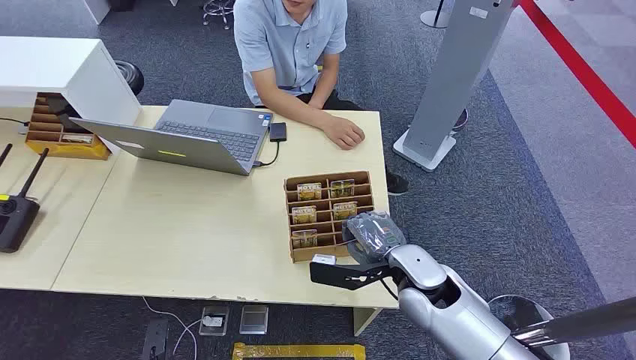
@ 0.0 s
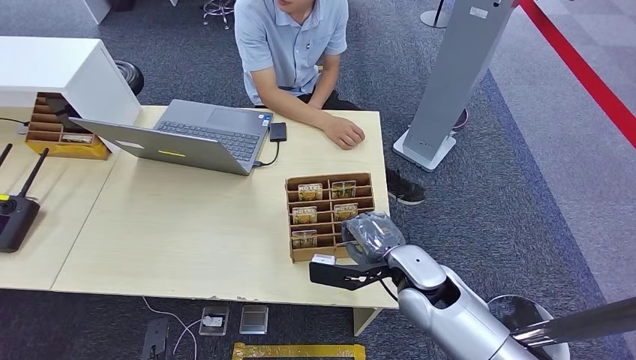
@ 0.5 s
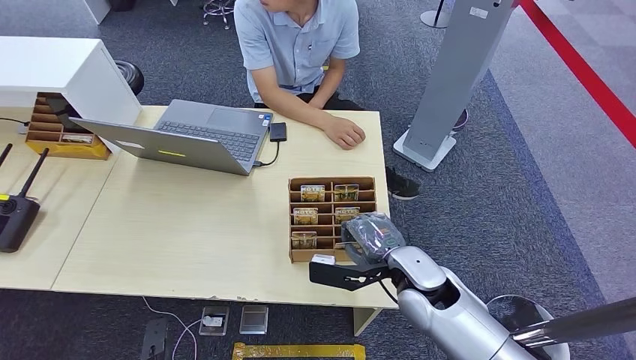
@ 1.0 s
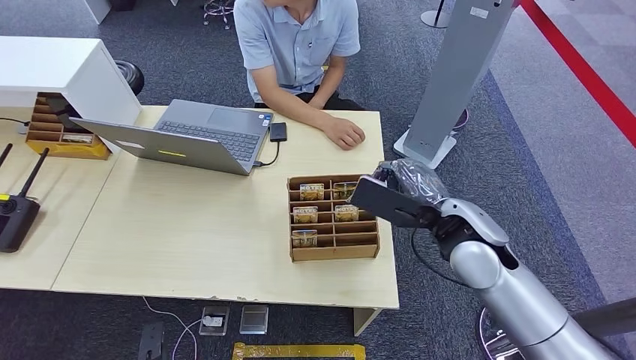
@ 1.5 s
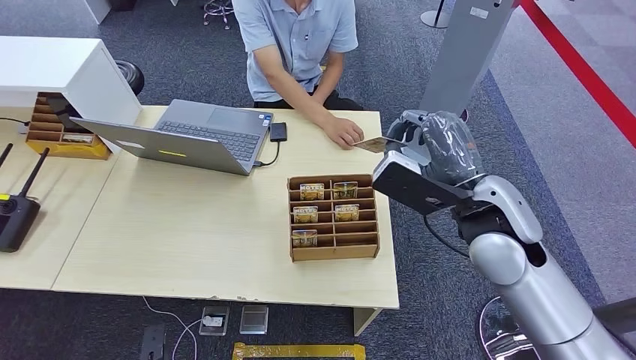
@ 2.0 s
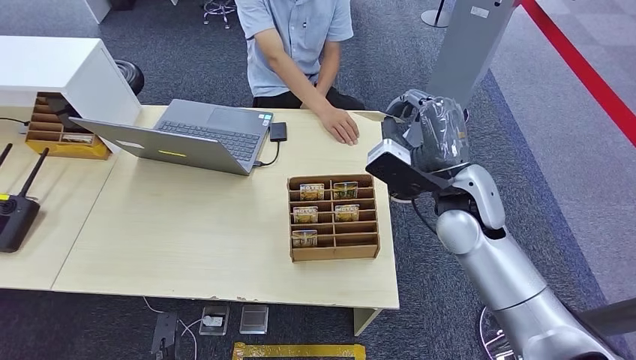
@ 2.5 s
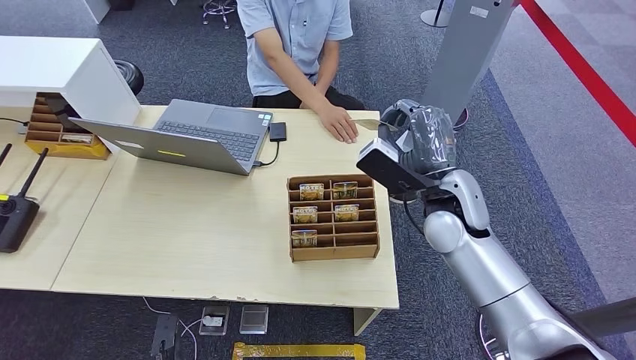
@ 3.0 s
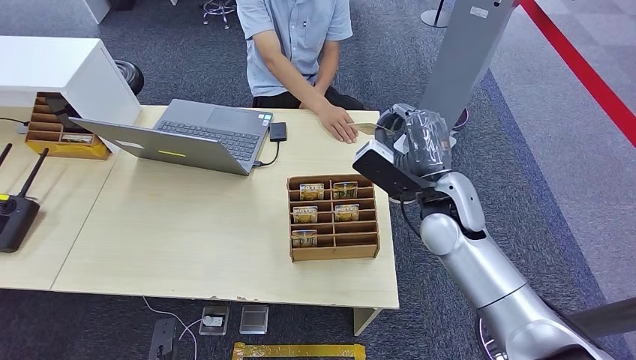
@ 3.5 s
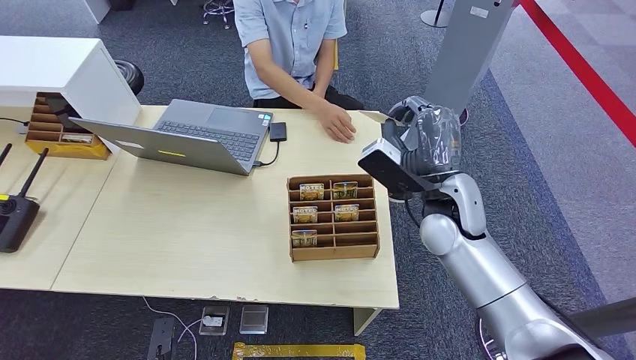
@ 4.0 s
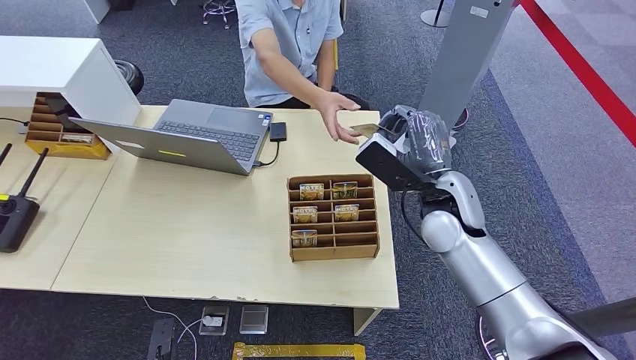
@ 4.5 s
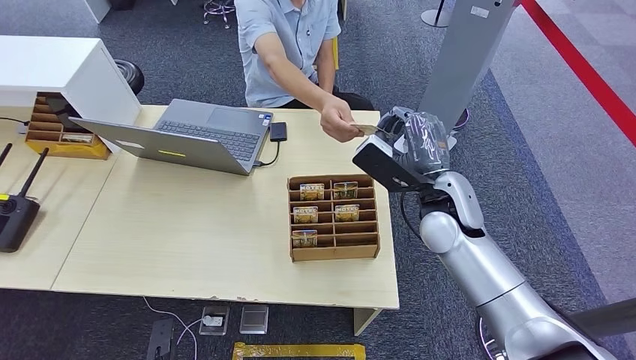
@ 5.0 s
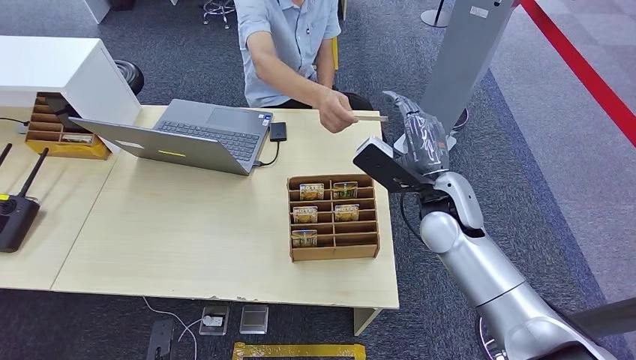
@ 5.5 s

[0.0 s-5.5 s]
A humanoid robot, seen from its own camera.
Step, 0.0 to 1.5 s: Pick up the key card from the card box.
Step, 4.5 to 5.5 s: Hand the key card to the target.
2.0 to 3.5 s: The right hand is displaced downward and forward by some 10 cm.
3.5 to 5.5 s: The hands move only a little.

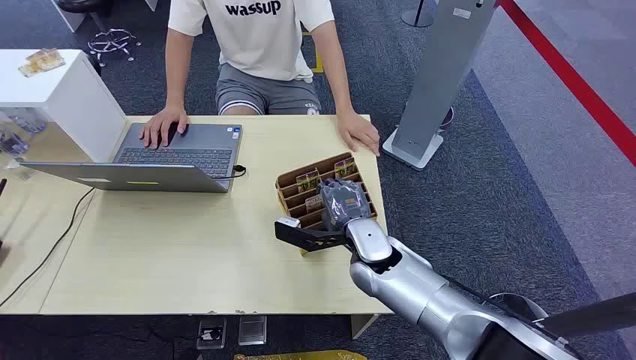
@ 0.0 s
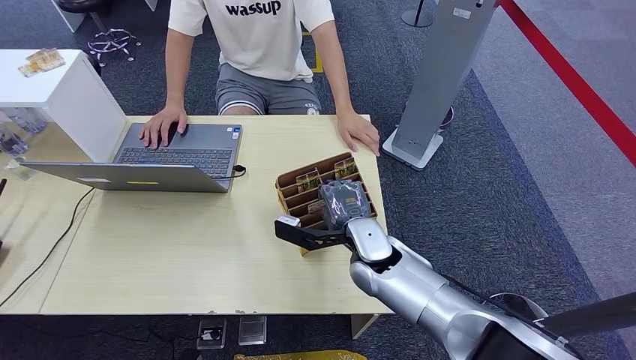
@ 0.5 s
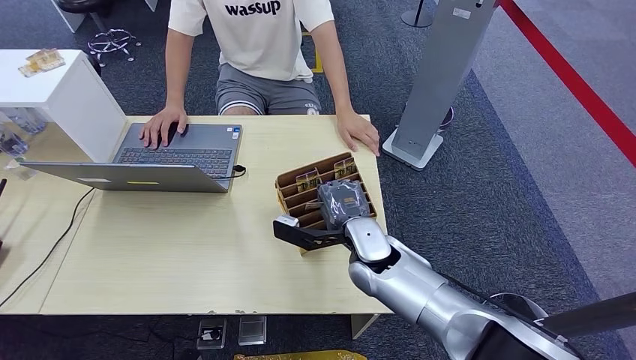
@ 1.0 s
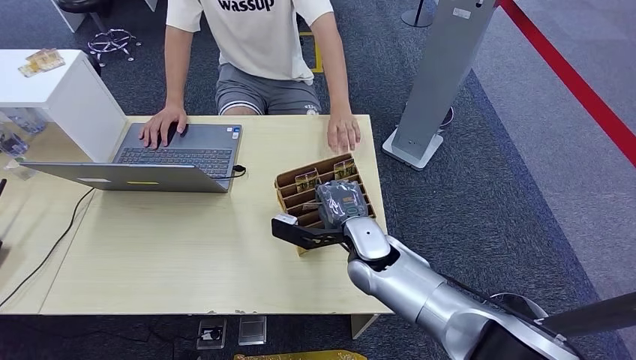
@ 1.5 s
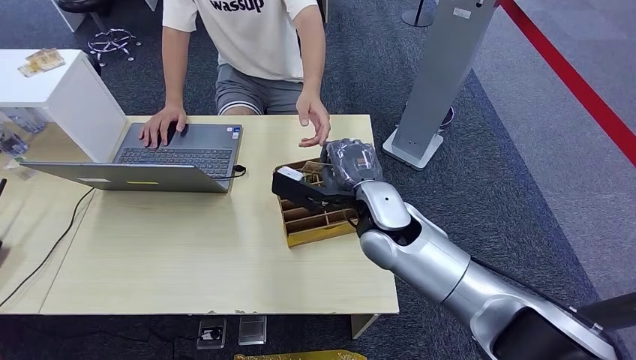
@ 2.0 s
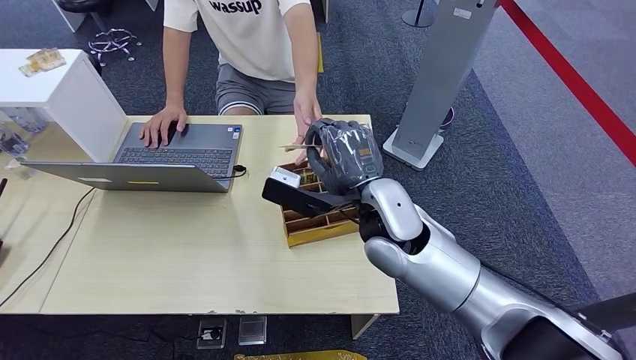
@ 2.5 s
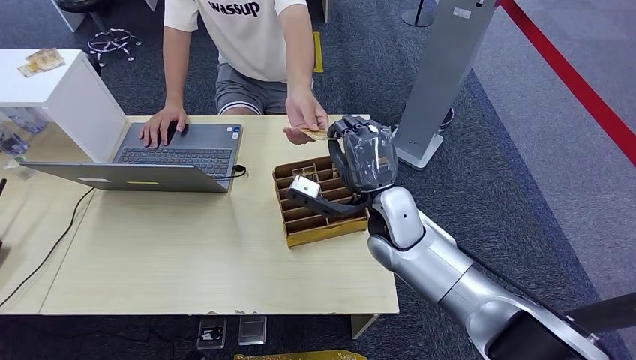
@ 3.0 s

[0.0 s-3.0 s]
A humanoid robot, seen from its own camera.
Step, 0.0 to 2.0 s: Pick up the key card from the card box.
Step, 2.5 to 3.0 s: Hand the key card to the target.
1.5 to 3.0 s: The right hand goes some 5 cm upward.
